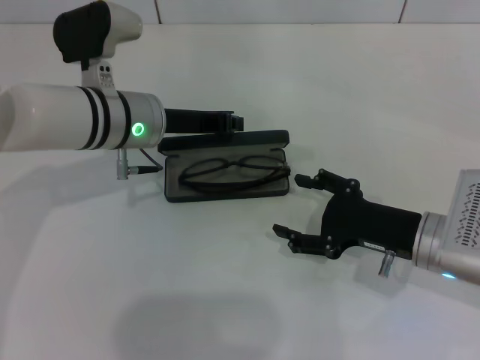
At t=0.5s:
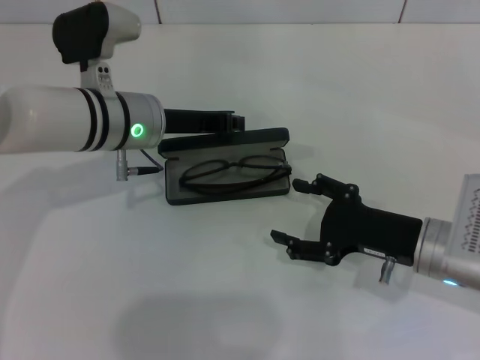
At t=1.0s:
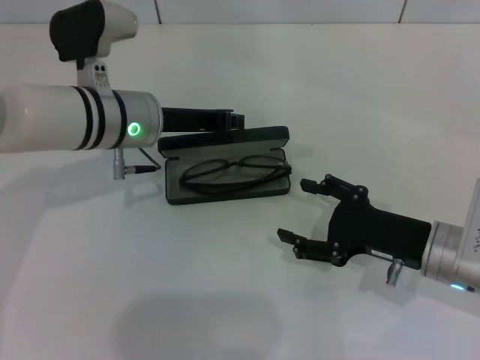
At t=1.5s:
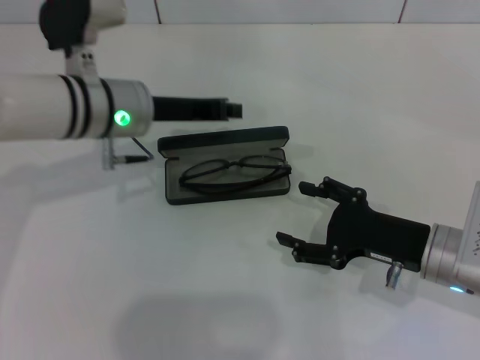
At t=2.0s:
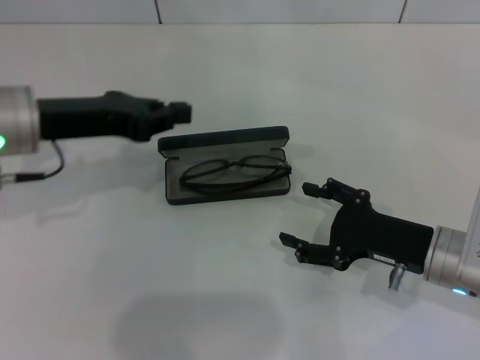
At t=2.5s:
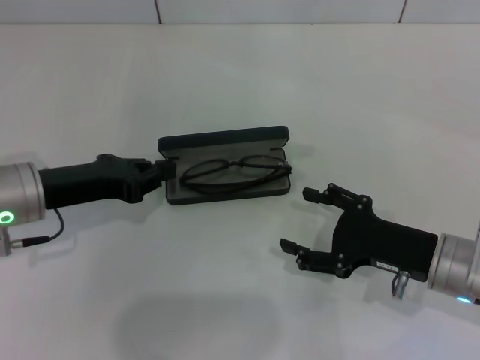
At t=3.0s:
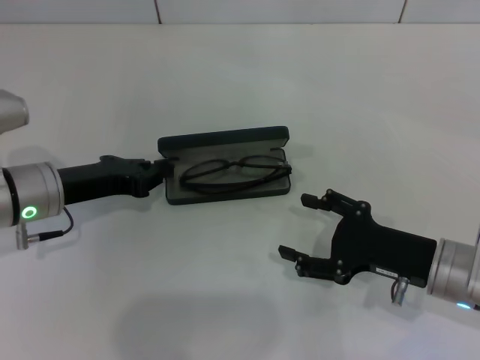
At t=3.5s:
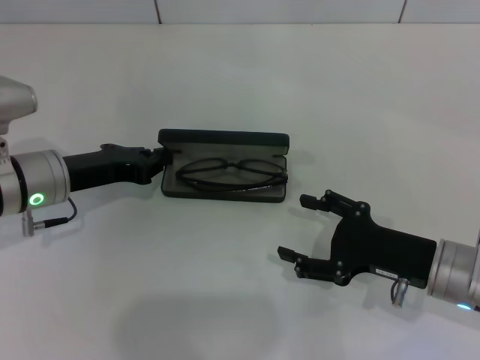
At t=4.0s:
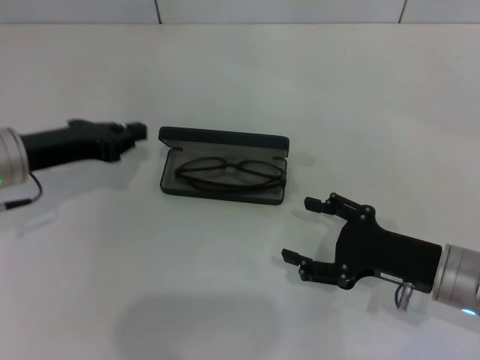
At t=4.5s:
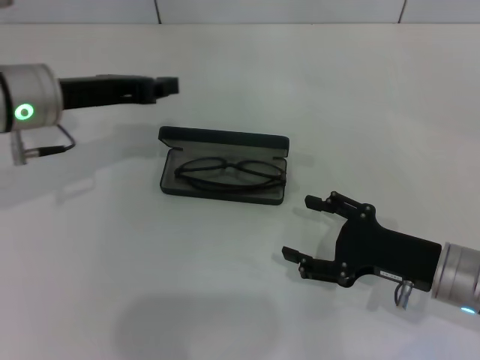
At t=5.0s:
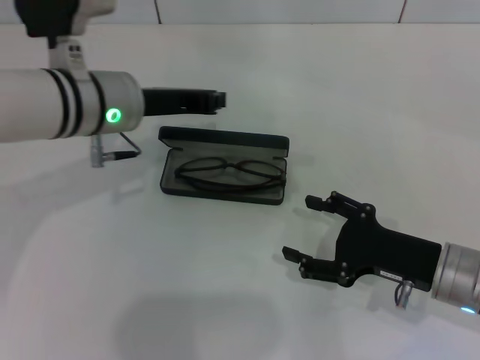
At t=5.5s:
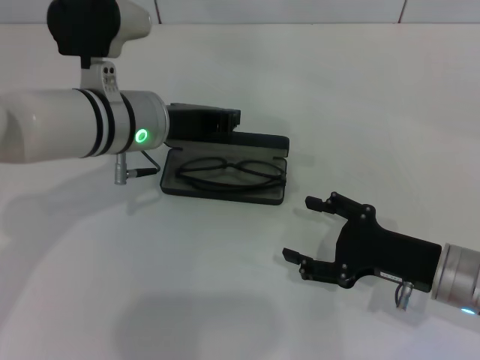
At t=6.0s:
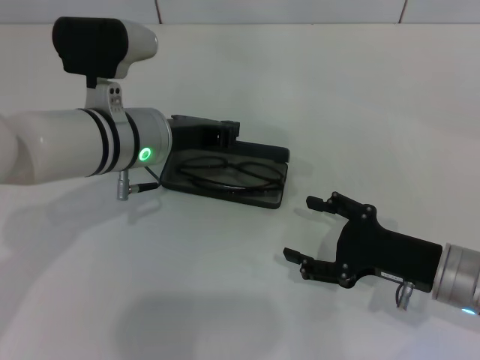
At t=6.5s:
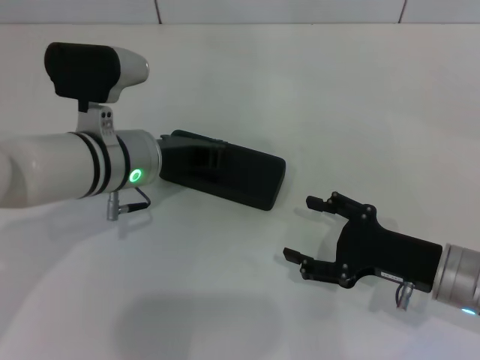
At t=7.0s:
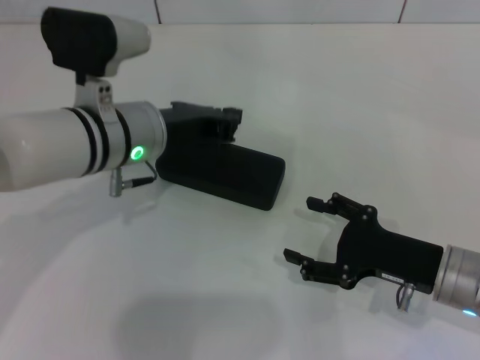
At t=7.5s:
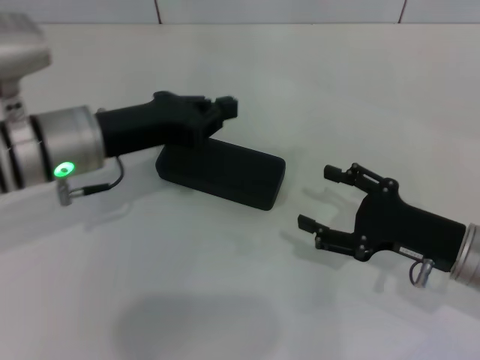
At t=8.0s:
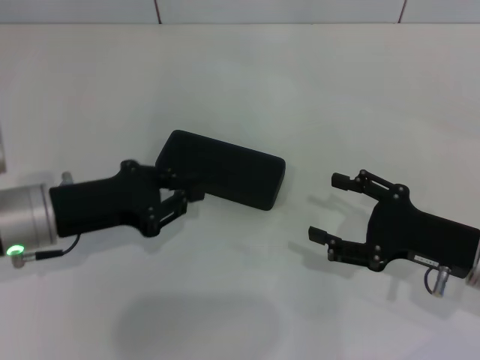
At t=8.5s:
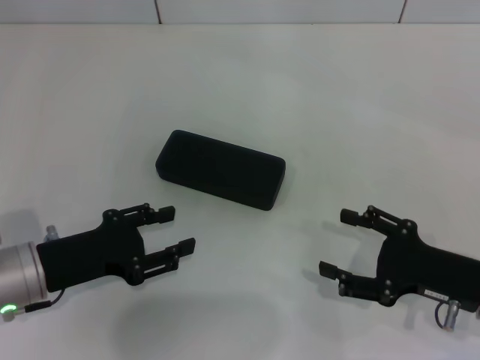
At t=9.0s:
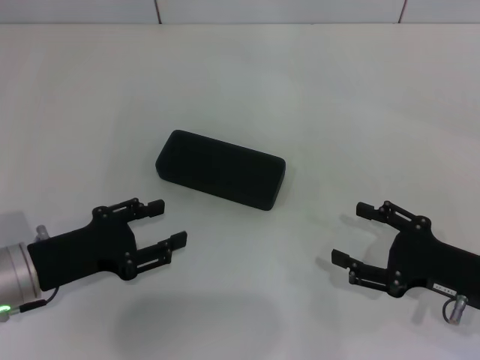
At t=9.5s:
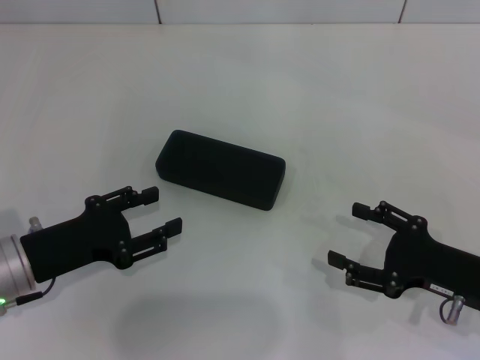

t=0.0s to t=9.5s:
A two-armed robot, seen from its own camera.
Step, t=0.0s to t=6.5s: Close the glasses case with your left hand.
t=0.0s to t=2.0s: The left gripper is displaced to the left by some 10 cm.
t=2.0s to t=4.0s: The left gripper heads downward, covering about 5 cm.
t=4.0s to t=5.5s: The left gripper heads to the right, covering roughly 15 cm.
t=5.5s to t=7.5s: The left gripper is displaced to the left by approximately 5 cm.
t=7.5s to t=9.5s: The left gripper goes about 15 cm backward, downward and to the left, and opens up.

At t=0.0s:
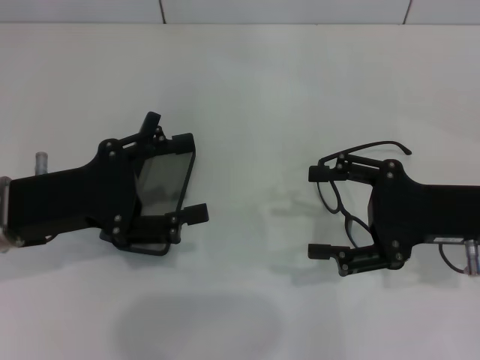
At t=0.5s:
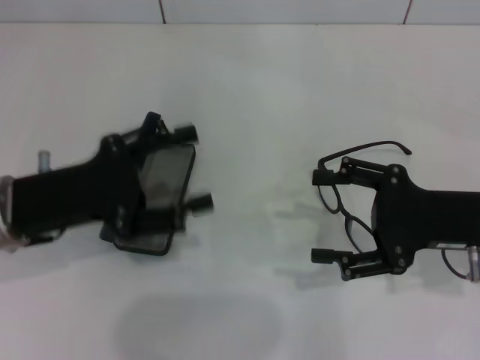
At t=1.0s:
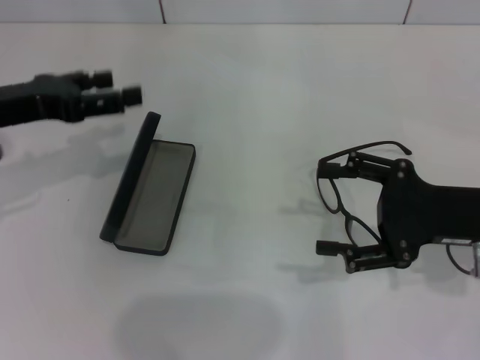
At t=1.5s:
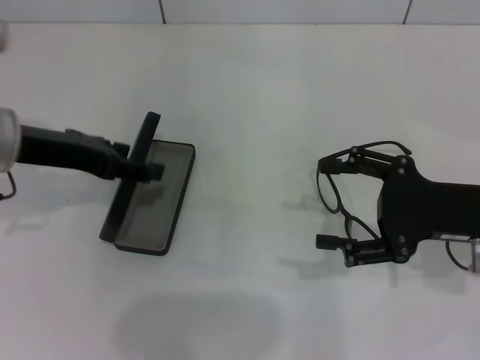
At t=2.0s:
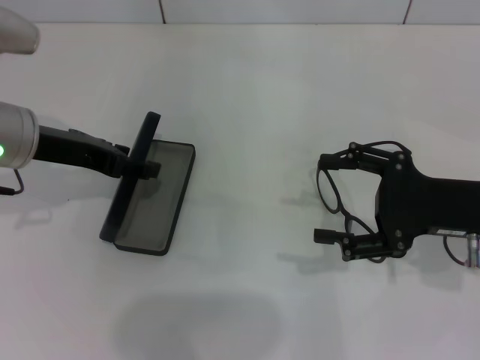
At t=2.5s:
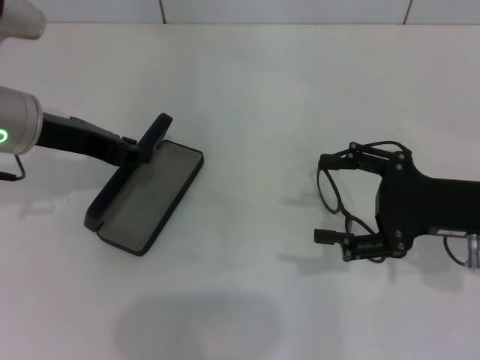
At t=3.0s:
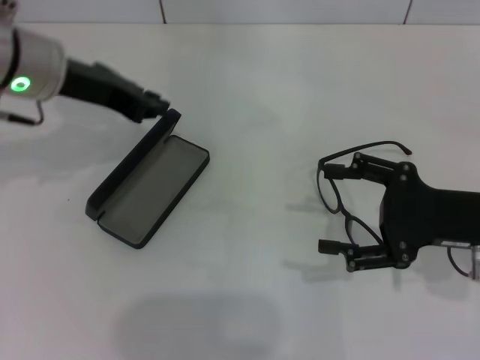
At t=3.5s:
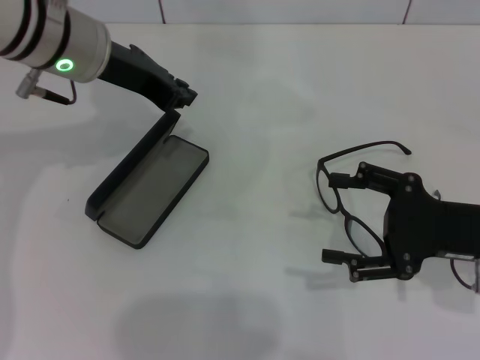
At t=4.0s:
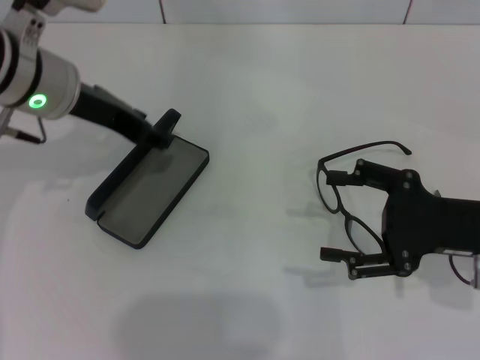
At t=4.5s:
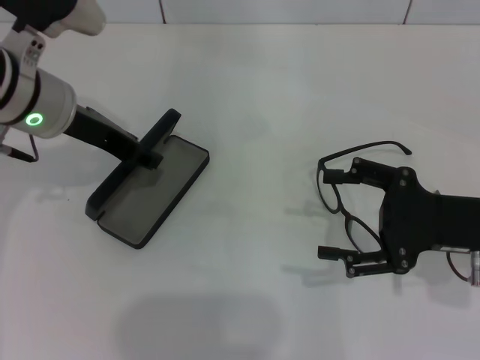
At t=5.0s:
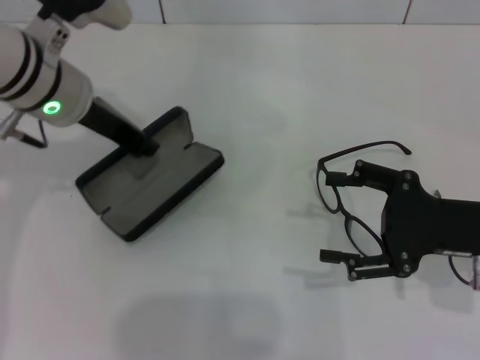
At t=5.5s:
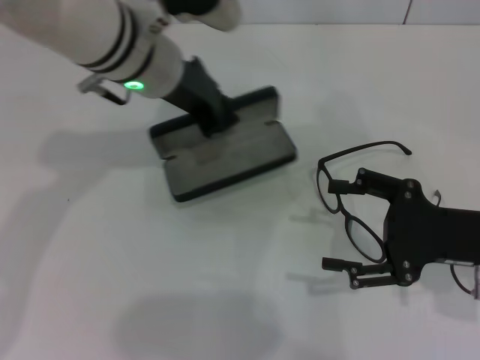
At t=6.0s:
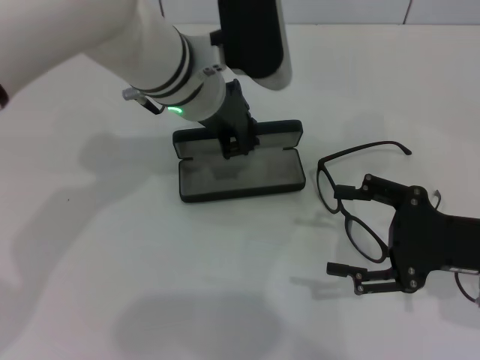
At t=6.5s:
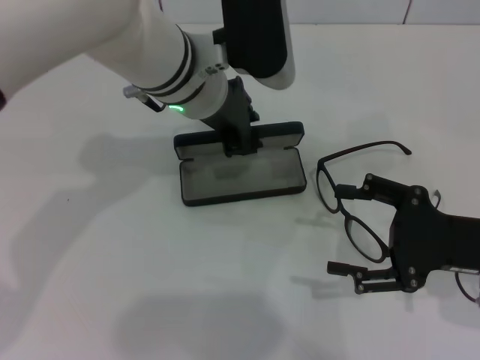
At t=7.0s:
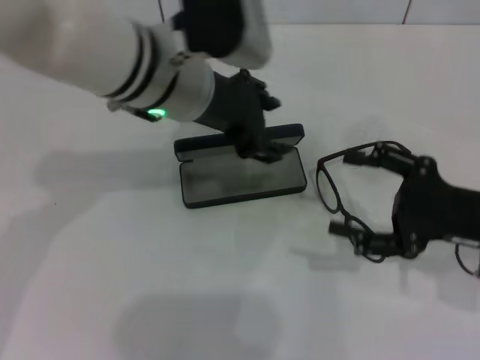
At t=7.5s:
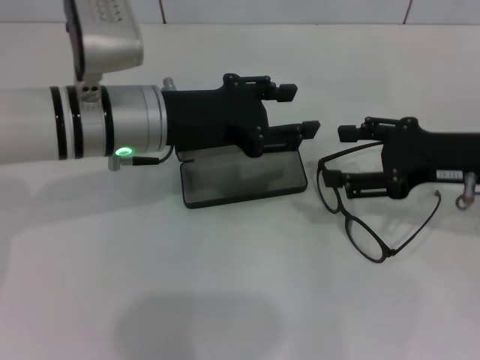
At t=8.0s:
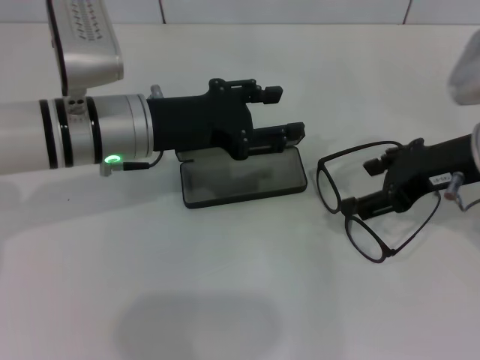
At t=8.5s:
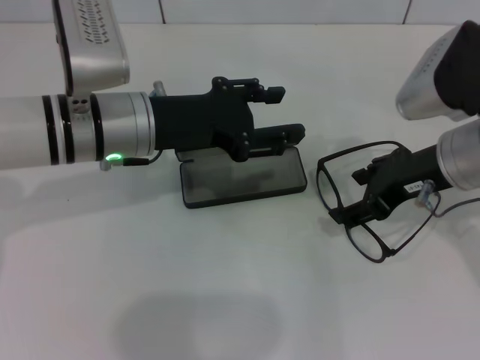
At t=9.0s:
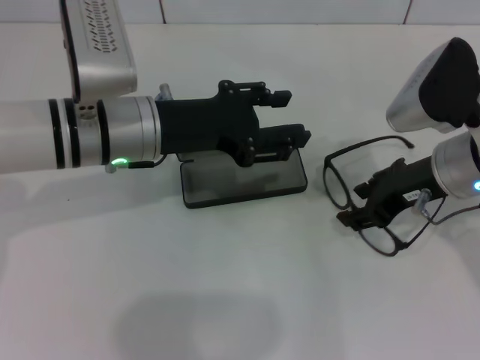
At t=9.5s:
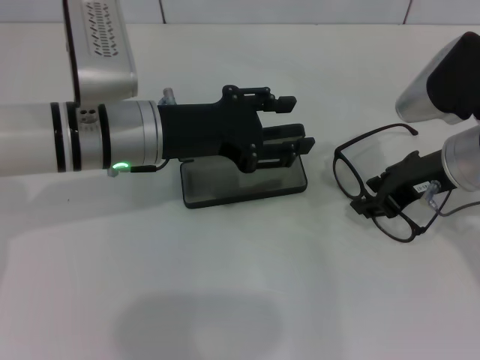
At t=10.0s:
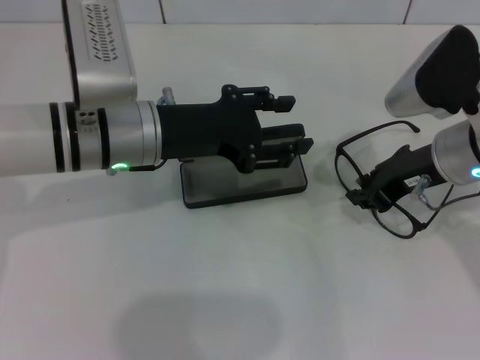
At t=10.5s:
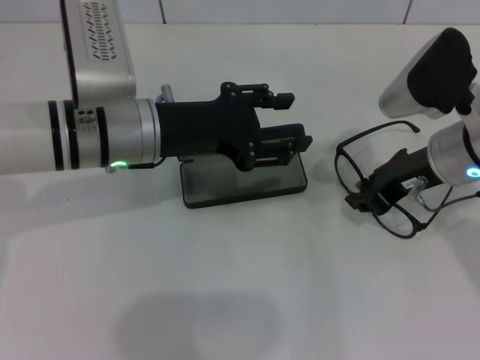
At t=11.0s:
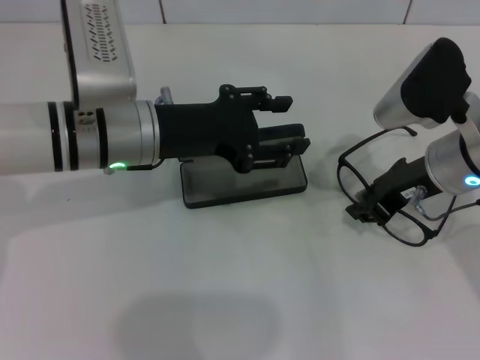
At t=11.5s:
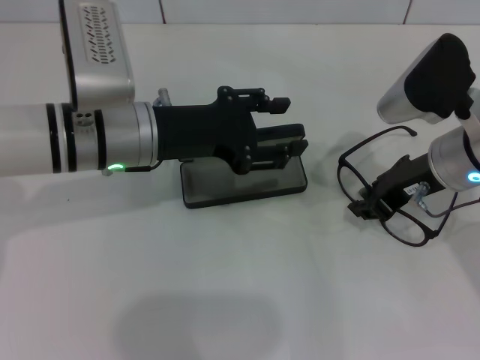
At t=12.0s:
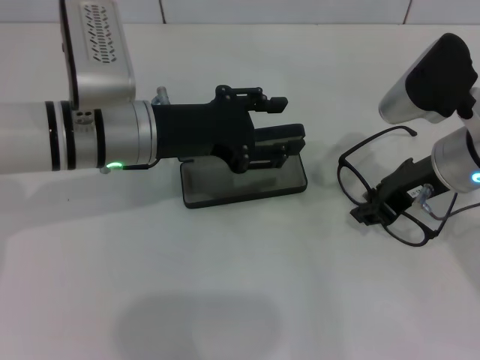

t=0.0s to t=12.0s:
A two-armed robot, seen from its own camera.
Step, t=0.0s to t=5.0s: Grab the glasses case with your left hand.
Step, t=5.5s to t=6.5s: Place the glasses case in the center of the table with your left hand.
t=0.0s to t=2.0s: The left gripper is displaced forward by some 5 cm.
t=2.0s to t=4.0s: The left gripper closes its fingers.
t=4.0s to t=6.0s: The left gripper heads to the right, covering some 15 cm.
t=6.0s to t=8.0s: The left gripper heads to the left, covering about 10 cm, and opens. Meanwhile the right gripper goes roughly 10 cm upward and forward.
t=8.0s to t=10.0s: The right gripper closes.
t=10.0s to t=12.0s: The grippers stay close to where they were, moving slightly.

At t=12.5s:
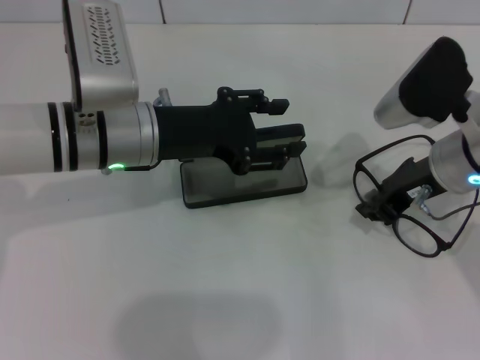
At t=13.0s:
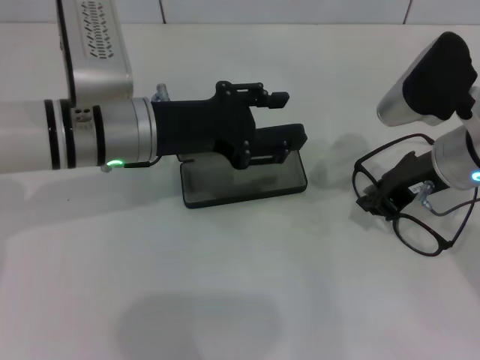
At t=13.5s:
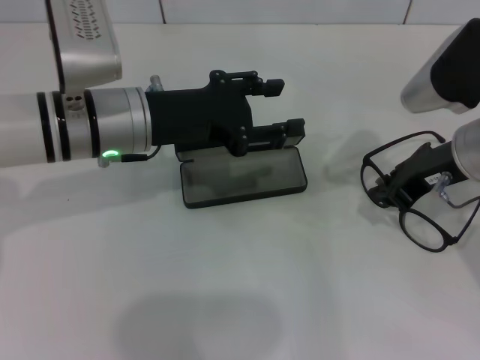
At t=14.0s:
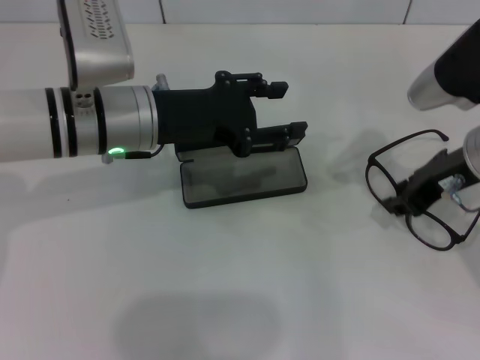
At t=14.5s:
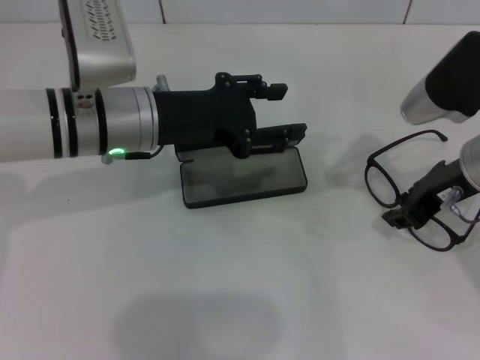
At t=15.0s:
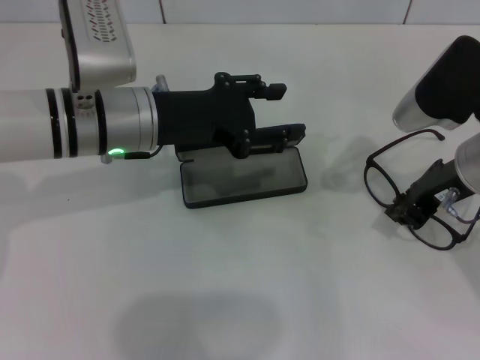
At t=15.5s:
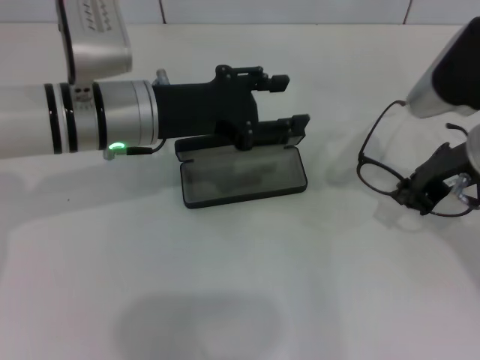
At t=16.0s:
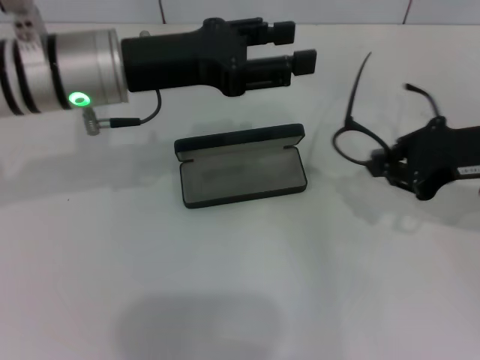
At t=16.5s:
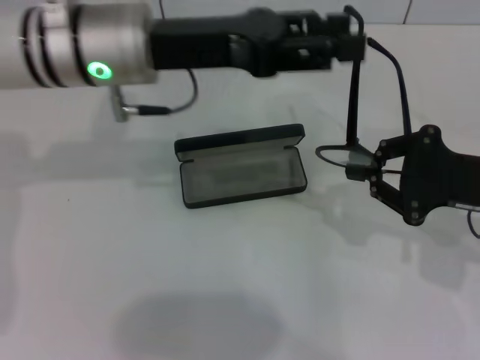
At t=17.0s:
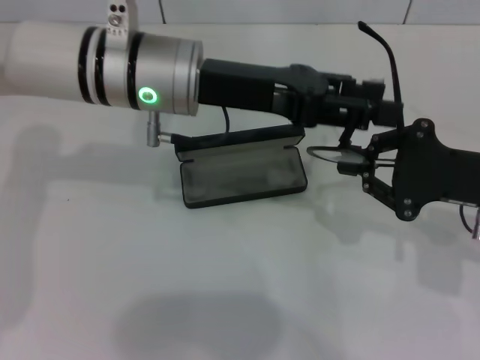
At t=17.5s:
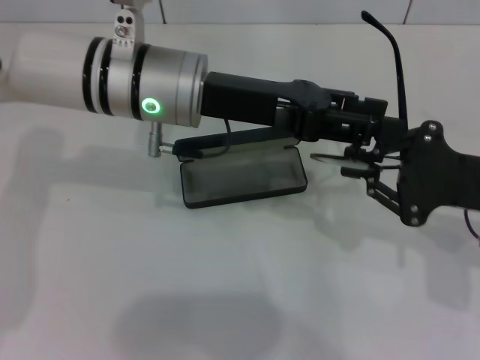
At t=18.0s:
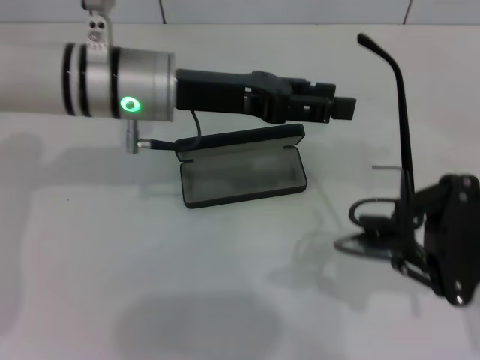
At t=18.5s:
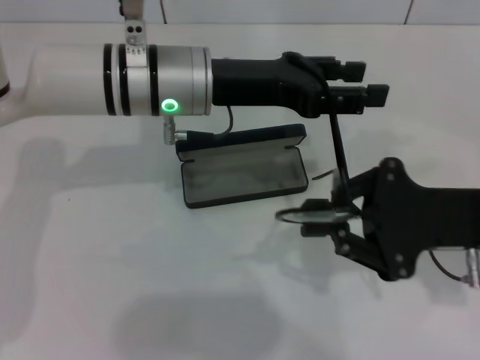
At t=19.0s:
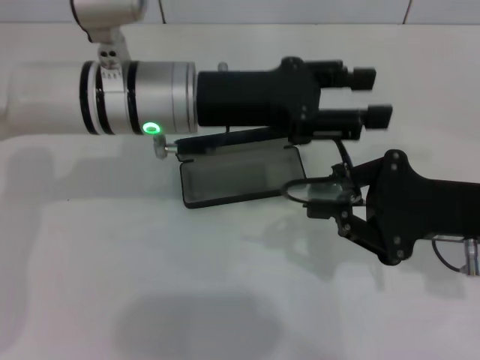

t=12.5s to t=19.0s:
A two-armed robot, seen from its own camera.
Step, t=12.5s to t=15.0s: Grab the eyeglass frame with your right hand.
t=12.5s to t=14.5s: The grippers stay close to where they were, moving slightly.
t=14.5s to t=17.0s: The left gripper changes place by about 5 cm, while the right gripper heads to the right, covering some 5 cm.
